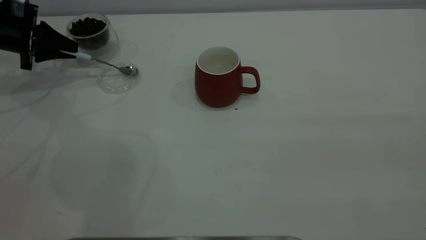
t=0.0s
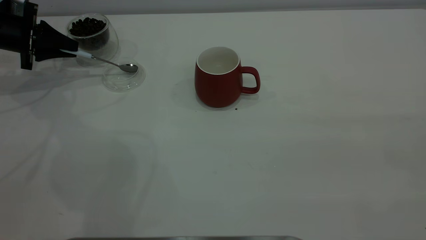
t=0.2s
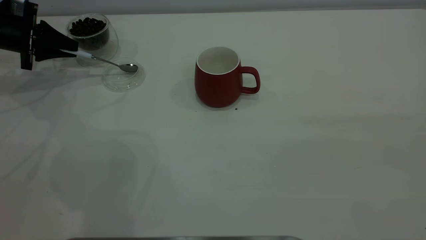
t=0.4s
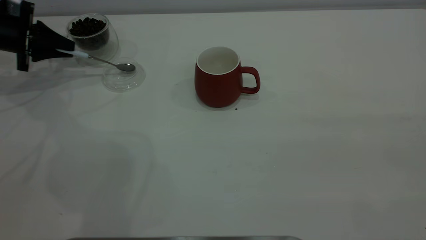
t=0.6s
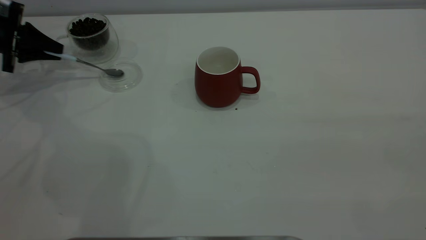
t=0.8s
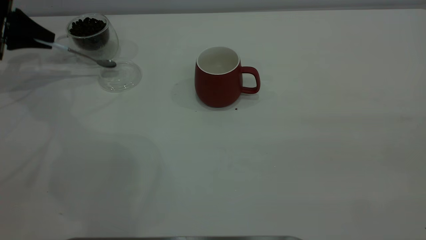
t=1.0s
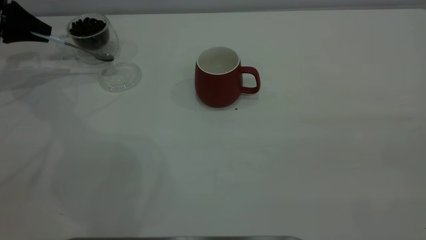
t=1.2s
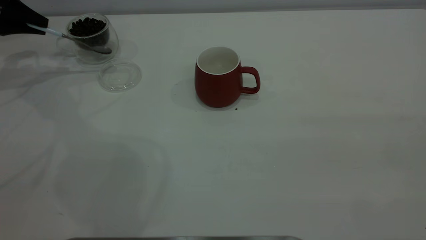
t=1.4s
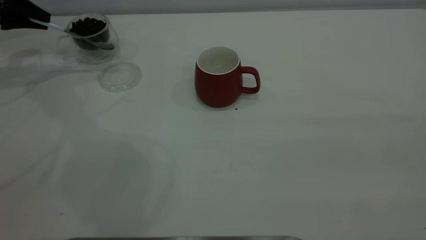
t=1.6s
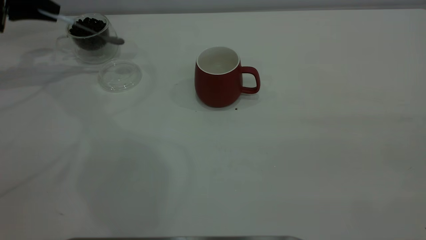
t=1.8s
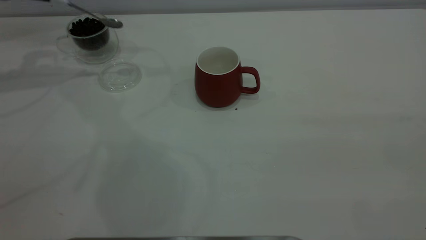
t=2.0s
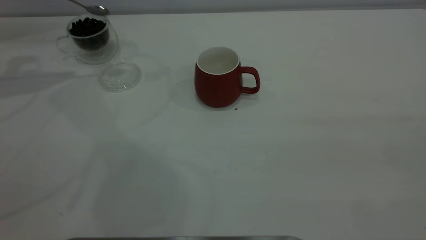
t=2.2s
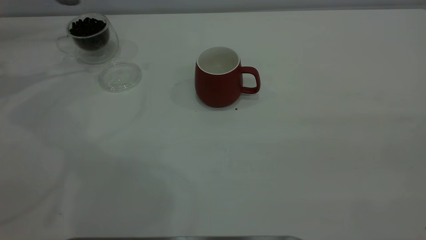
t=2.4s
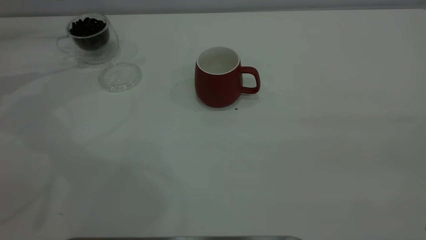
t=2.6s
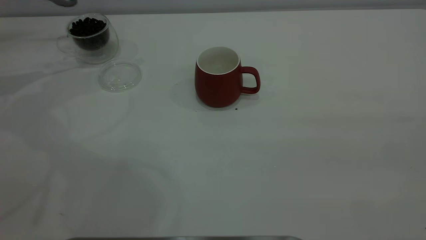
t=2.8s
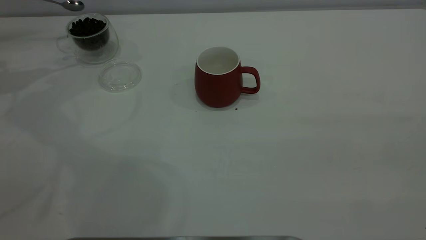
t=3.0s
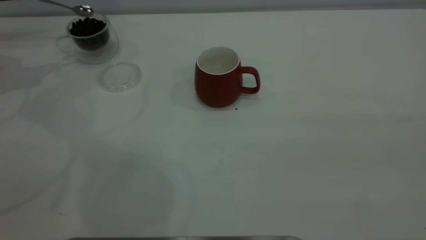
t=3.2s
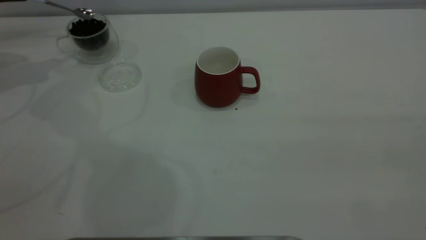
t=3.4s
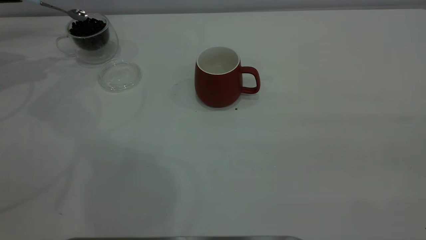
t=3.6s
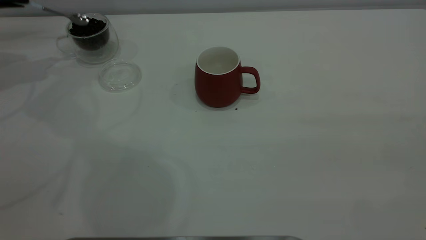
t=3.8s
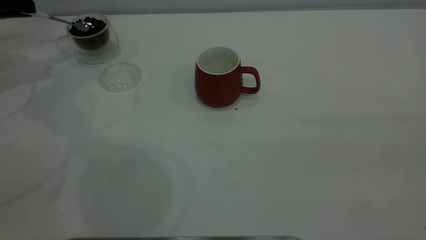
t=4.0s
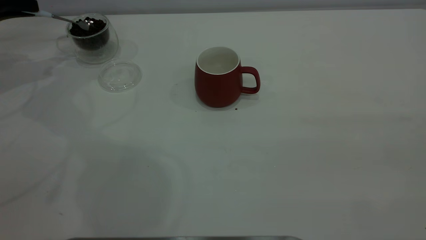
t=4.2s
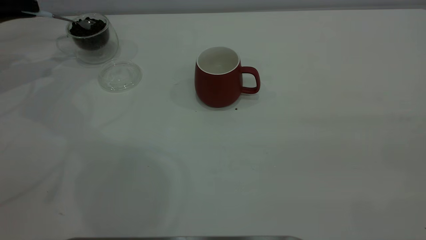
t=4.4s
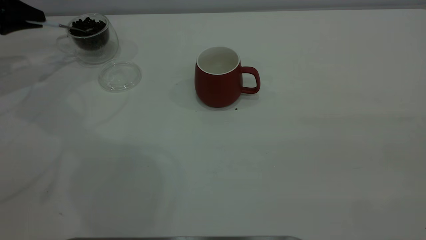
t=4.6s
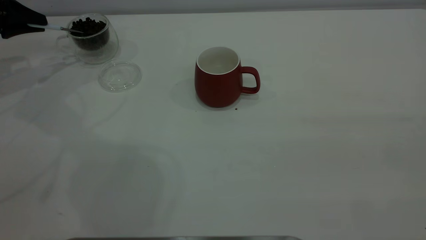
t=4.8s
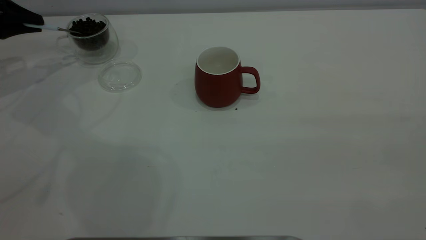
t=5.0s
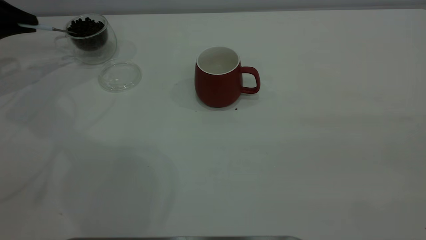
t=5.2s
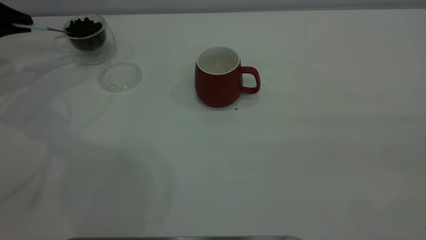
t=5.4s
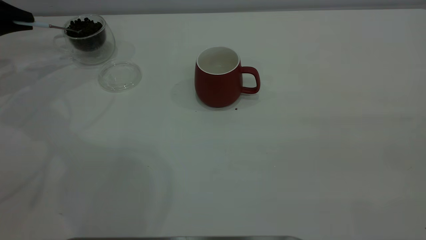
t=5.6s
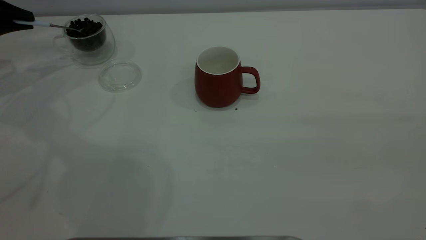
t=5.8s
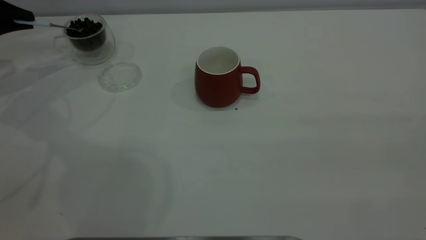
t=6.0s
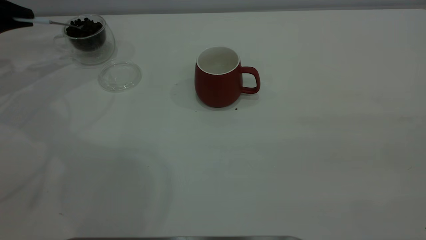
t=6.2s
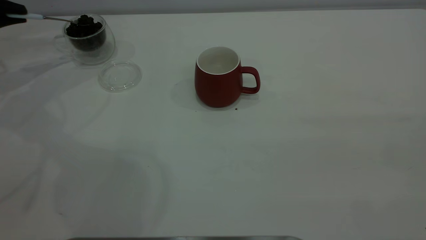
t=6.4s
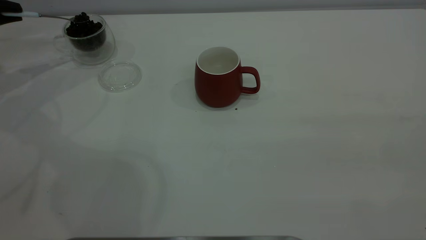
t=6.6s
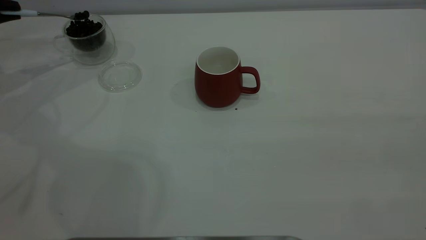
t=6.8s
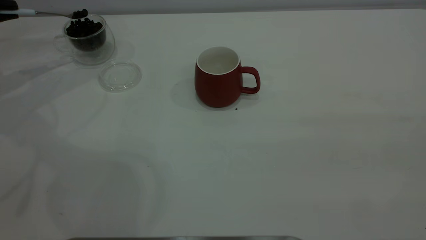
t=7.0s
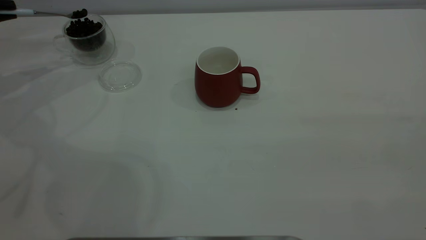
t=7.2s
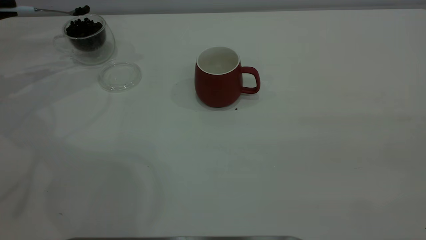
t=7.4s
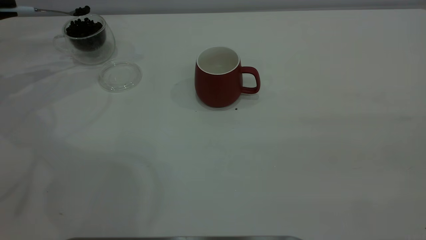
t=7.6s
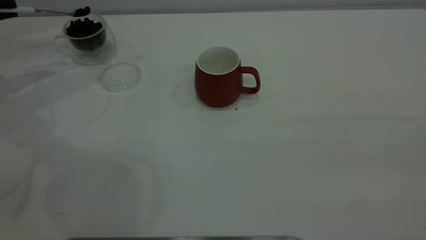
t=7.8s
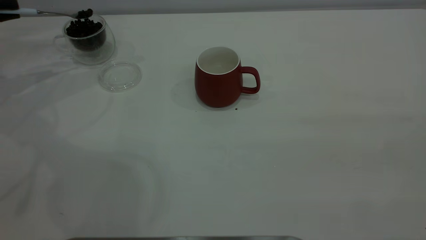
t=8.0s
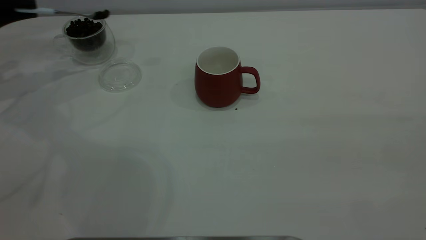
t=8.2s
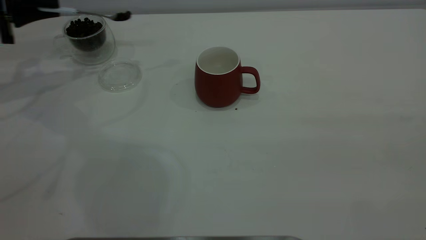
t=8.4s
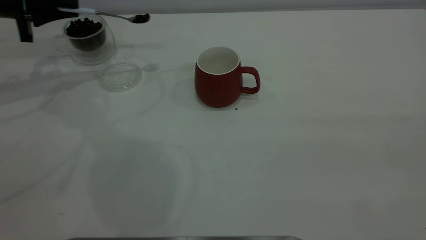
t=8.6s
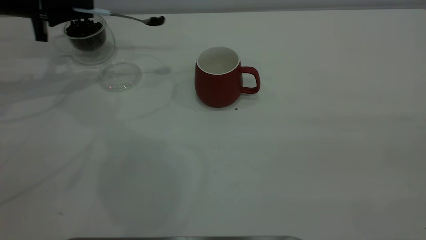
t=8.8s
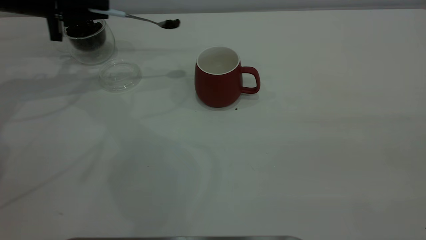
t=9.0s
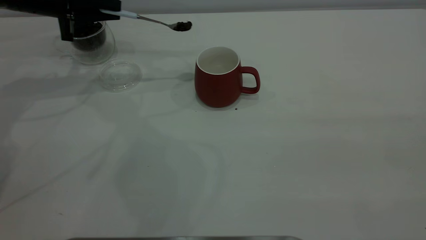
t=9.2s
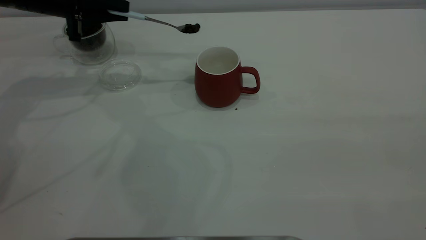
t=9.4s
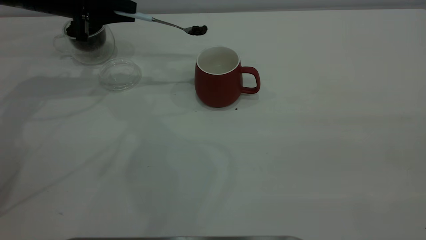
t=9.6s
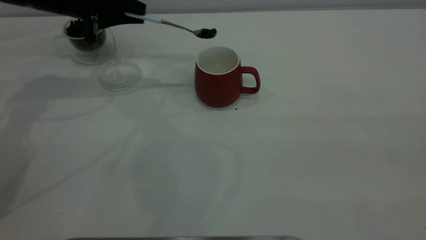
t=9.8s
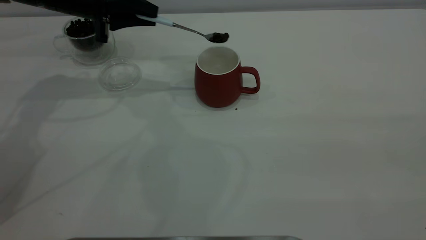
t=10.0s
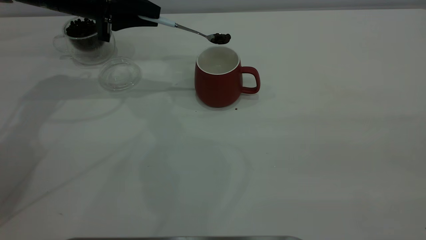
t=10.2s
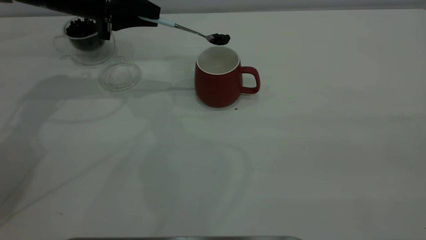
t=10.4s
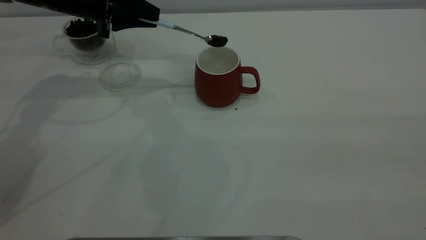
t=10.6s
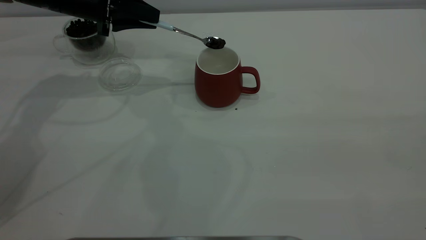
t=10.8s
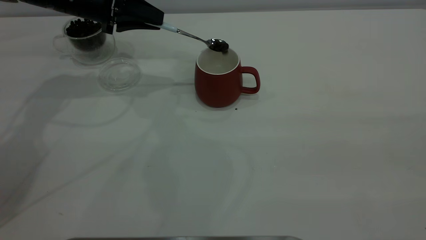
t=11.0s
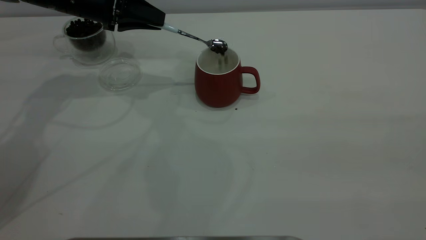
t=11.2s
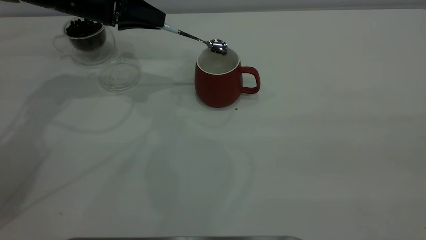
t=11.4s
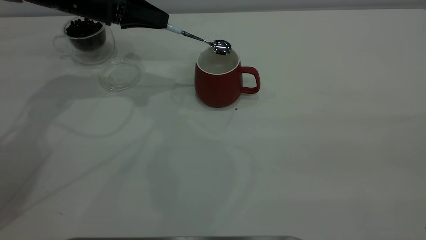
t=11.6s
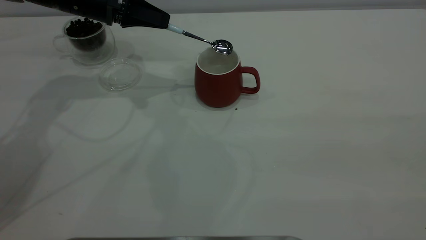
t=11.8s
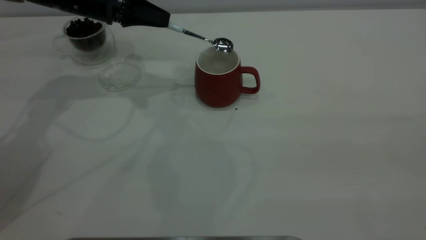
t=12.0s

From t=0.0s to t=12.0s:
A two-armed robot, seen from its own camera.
Task of the whole recording: the right gripper place the red cup in the center of the table, the left gripper take the blue spoon from the cup lid and scoop out the coffee beans from the coffee cup and put them into the red cup, the left gripper put the spoon back into the cup lid.
From t=0.0s to t=1.6s: The left gripper moves upward, roughly 10 cm.
From t=1.6s to t=3.0s: The left gripper ends up some 5 cm from where it was.
From t=3.0s to t=4.4s: The left gripper ends up approximately 5 cm from where it was.
From t=7.6s to t=9.0s: The left gripper goes approximately 15 cm to the right.
From t=9.0s to t=10.4s: The left gripper heads to the right, covering roughly 10 cm.

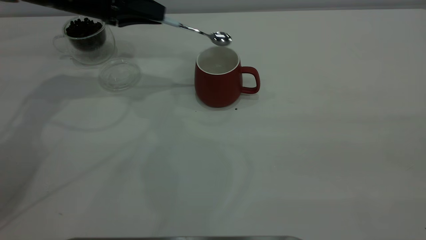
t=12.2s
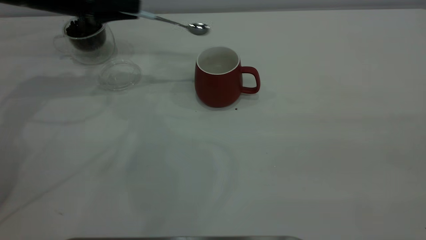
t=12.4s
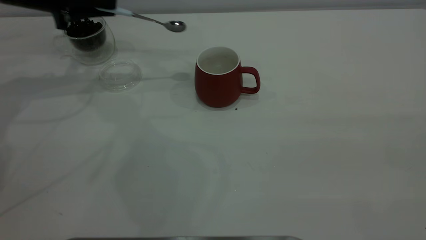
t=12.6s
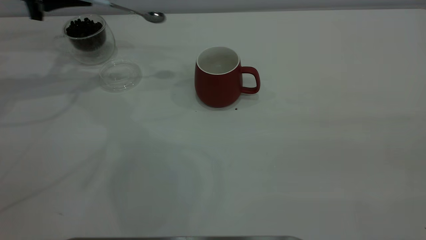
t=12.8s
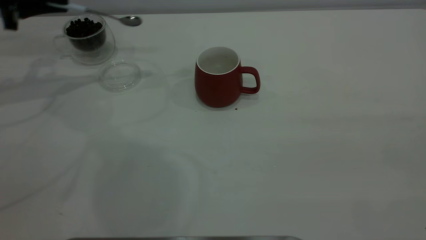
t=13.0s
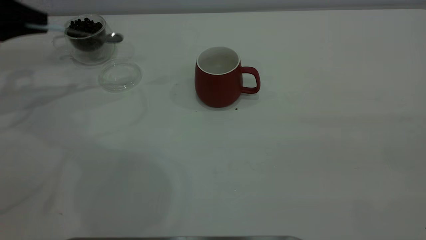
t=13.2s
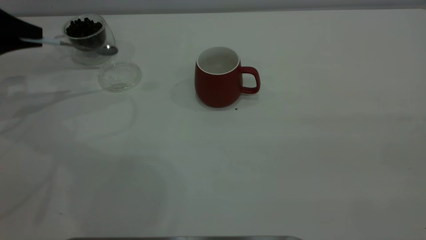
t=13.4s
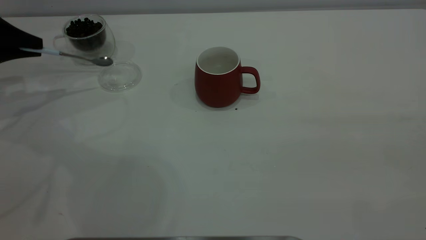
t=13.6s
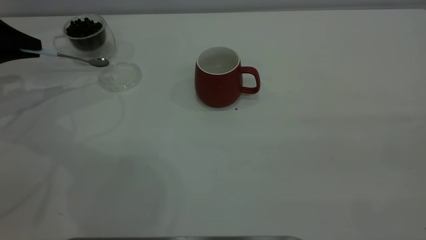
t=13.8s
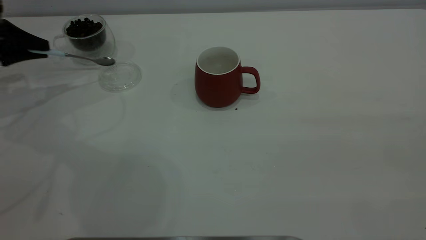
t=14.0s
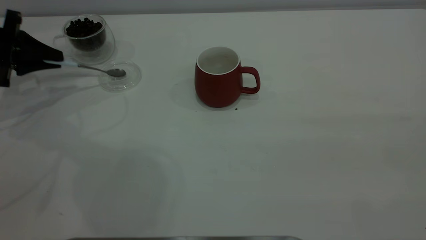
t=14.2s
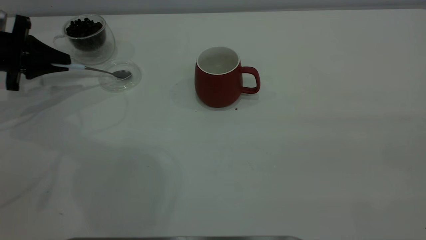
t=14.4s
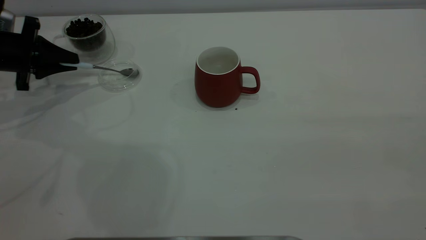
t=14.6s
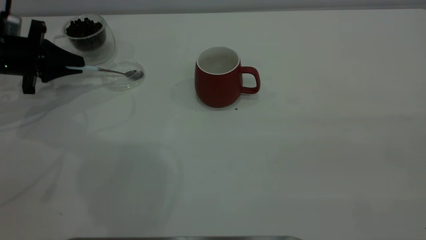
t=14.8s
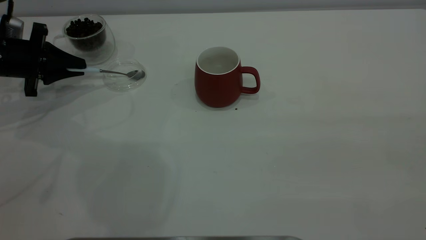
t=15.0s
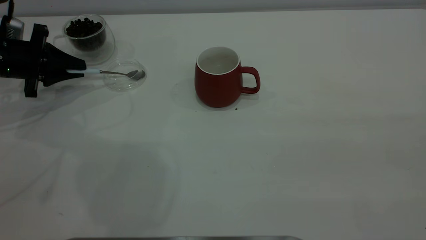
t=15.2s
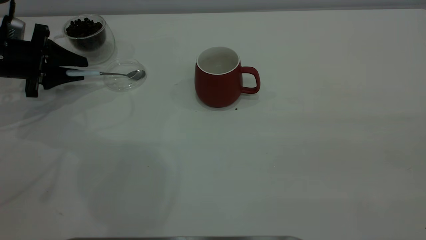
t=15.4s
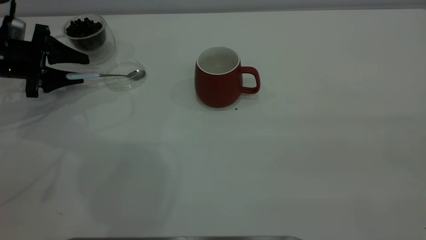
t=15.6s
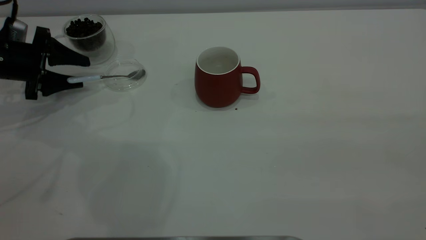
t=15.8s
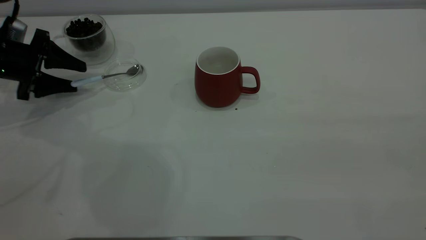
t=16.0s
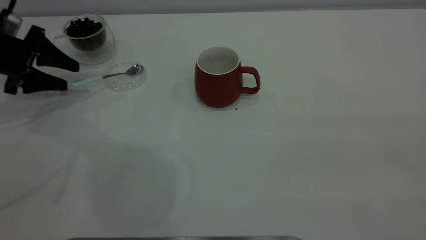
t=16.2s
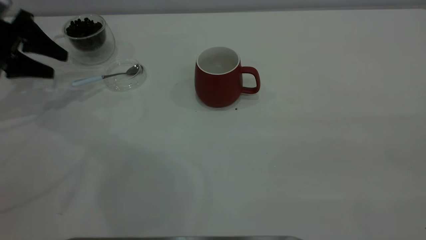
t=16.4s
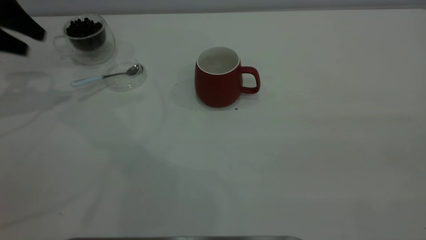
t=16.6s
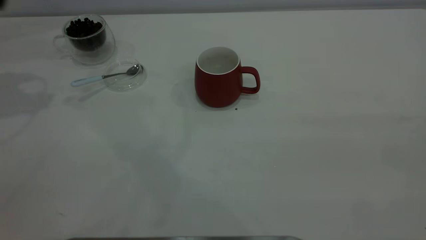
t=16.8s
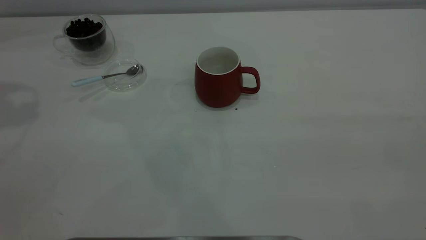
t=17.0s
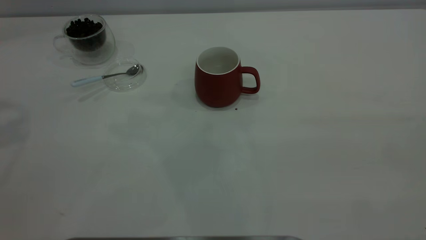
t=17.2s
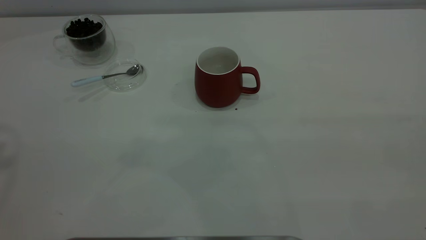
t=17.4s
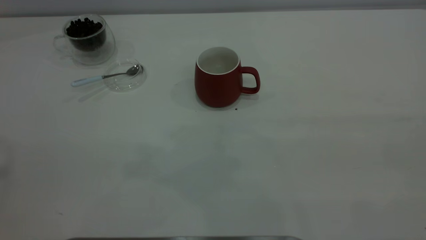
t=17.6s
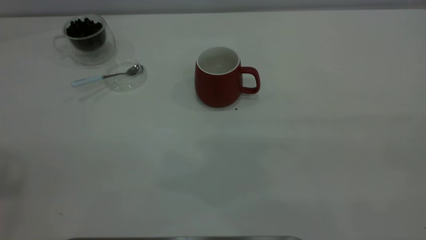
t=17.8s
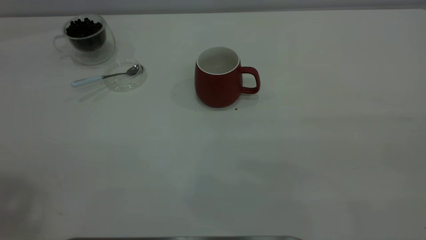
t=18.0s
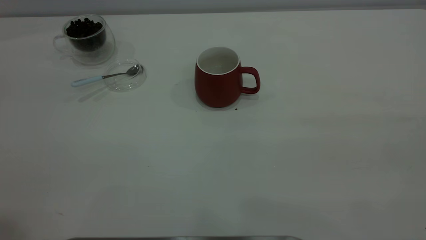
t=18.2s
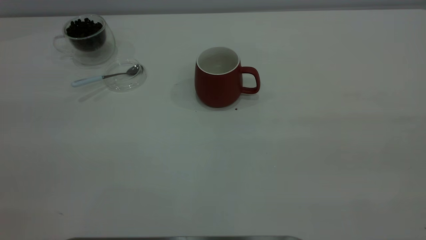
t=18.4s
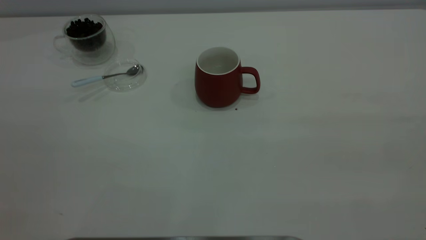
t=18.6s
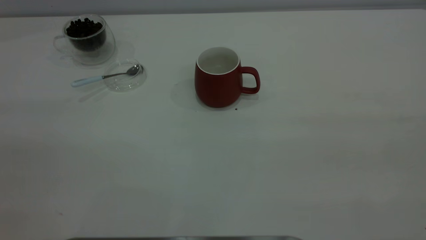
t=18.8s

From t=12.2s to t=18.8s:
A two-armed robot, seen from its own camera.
Task of the whole recording: the right gripper place the red cup in the center of the table, the left gripper take the blue spoon from the cup lid and scoop out the coffee beans from the coffee cup and put them into the red cup, the left gripper put the spoon back into the cup lid.
Step, from t=12.4s to t=16.2s: Place the spoon back in its original place.
From t=12.2s to t=13.8s: The left gripper heads to the left, covering approximately 20 cm.
From t=13.8s to t=15.4s: The left gripper is displaced downward and to the right by about 10 cm, and opens.
From t=15.4s to t=17.2s: The left gripper shifts roughly 40 cm upward, and opens its fingers.
